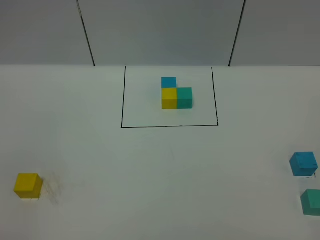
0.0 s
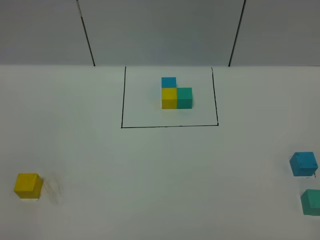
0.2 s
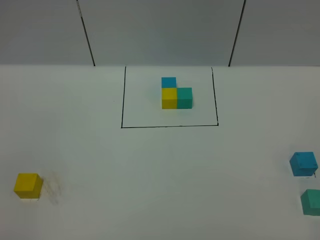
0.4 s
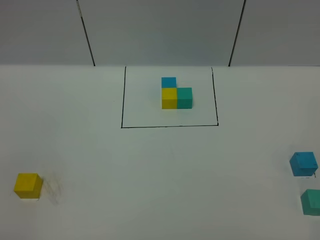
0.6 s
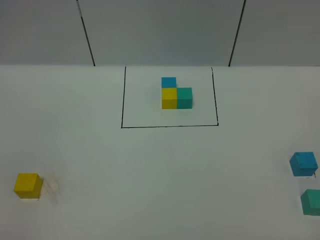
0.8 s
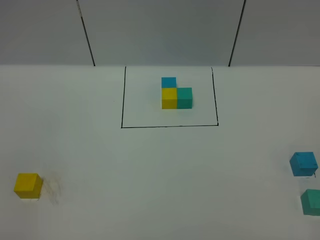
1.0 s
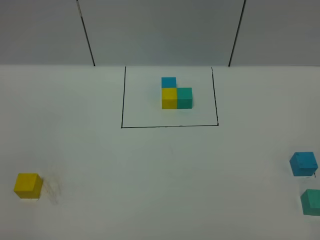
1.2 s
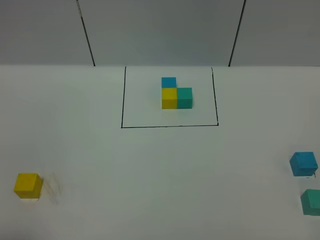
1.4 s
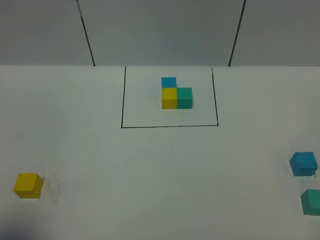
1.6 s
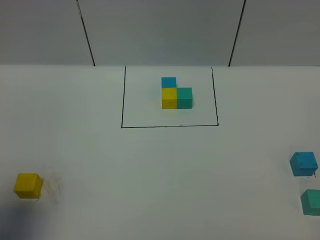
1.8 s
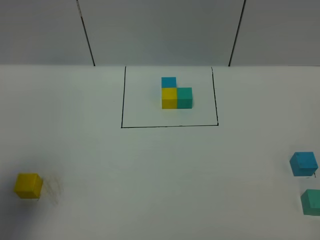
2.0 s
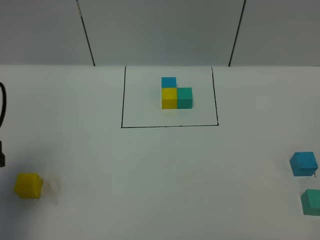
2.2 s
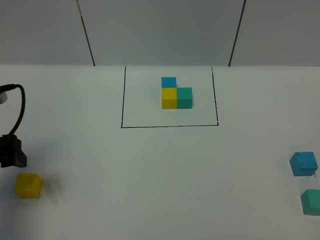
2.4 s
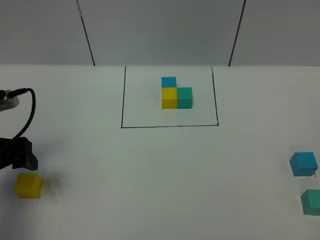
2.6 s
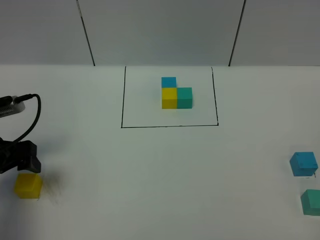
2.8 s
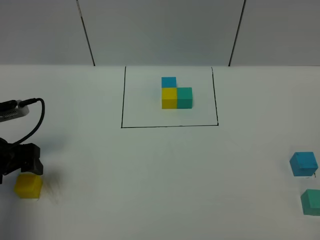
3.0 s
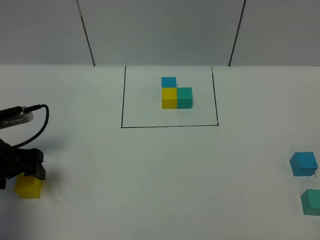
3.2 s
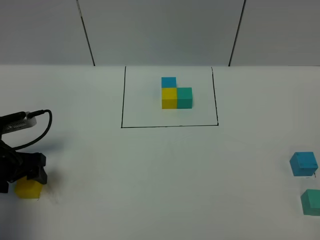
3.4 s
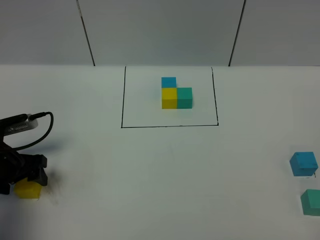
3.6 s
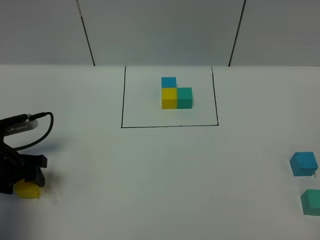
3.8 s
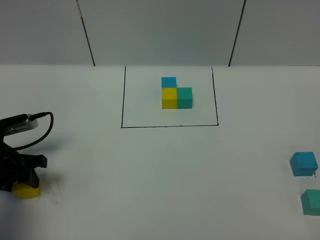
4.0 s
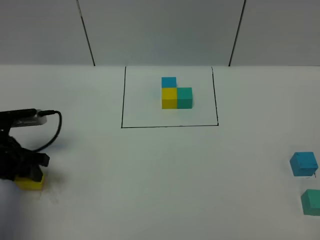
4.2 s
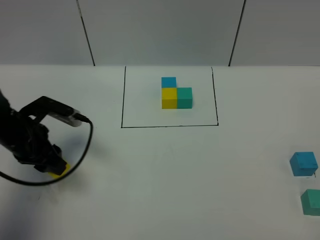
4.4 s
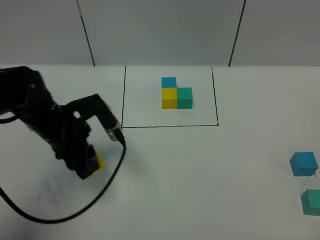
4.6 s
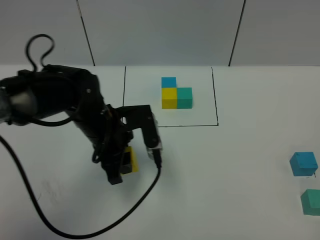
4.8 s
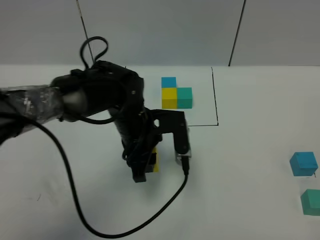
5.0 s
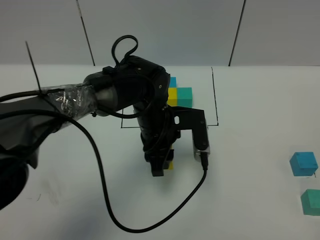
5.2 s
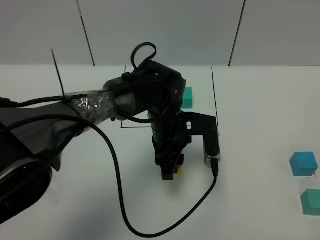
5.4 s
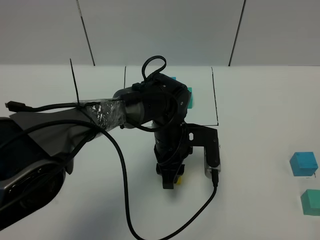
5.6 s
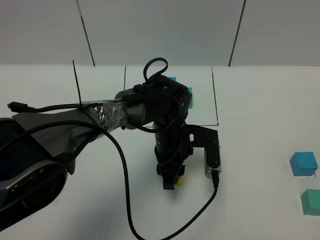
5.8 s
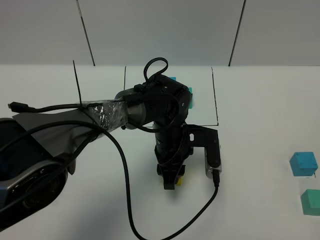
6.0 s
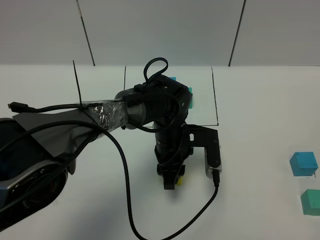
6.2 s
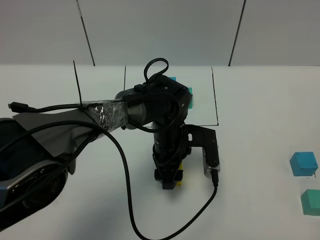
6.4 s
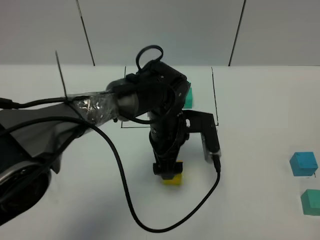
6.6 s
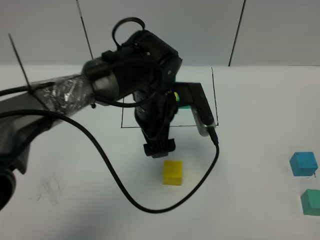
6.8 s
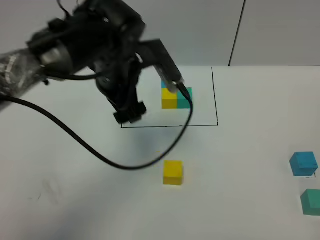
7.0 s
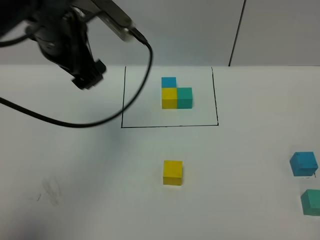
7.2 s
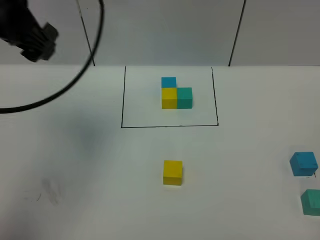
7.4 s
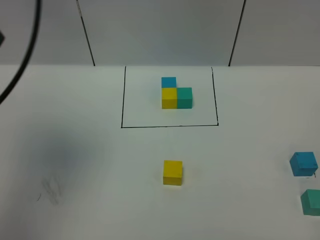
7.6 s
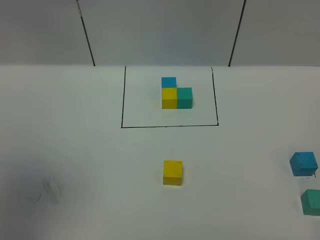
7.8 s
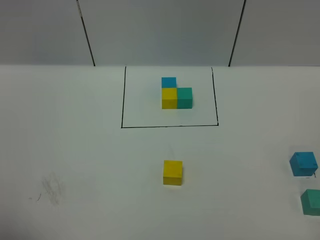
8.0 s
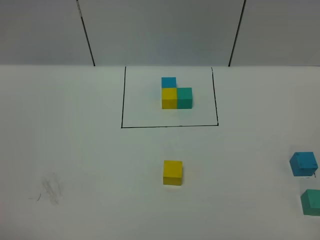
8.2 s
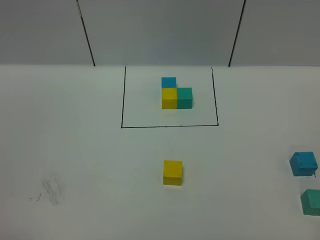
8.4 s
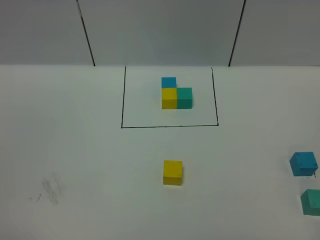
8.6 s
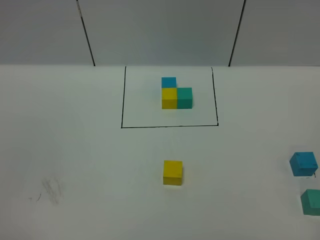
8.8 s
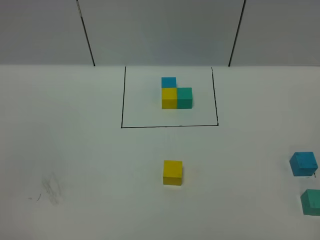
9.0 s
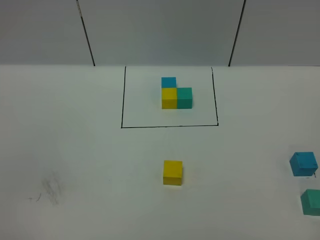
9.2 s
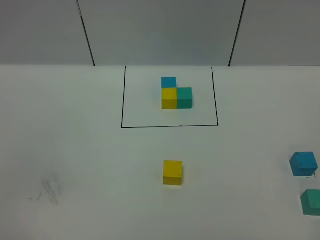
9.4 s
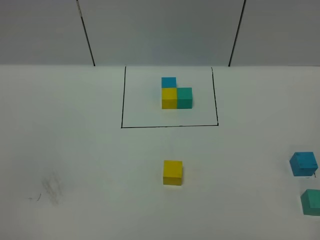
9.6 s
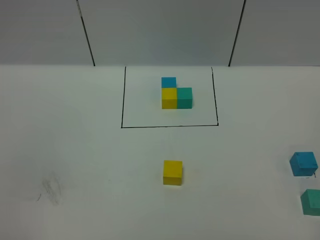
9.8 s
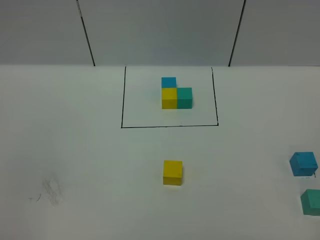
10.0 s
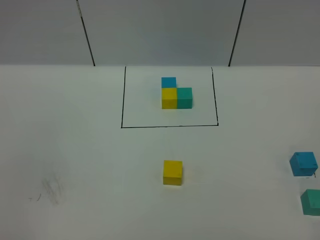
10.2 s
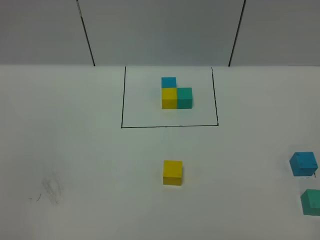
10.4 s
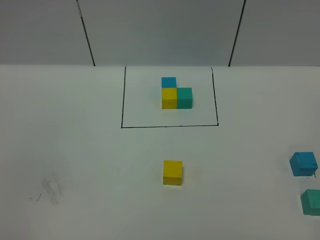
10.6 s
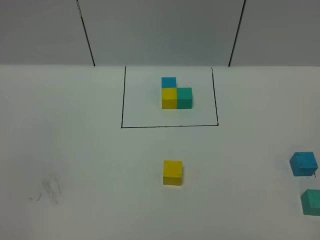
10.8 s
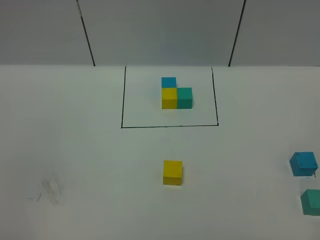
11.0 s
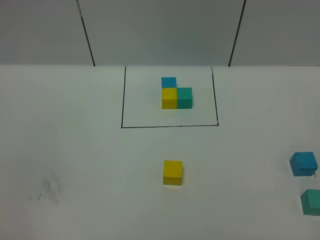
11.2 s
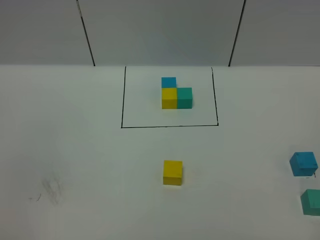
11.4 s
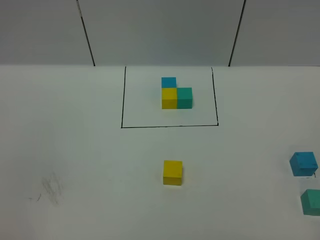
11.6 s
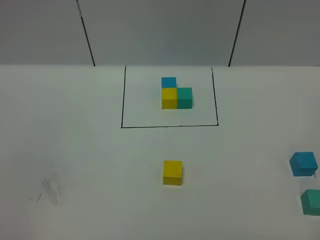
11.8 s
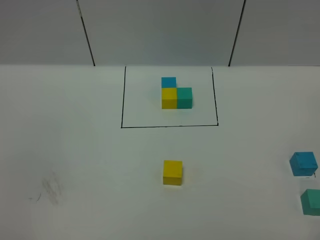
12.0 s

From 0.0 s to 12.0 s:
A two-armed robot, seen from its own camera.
Task of the whole recording: According to the building block template in front, assemble the scattered blocks together.
Step, from 2.2 s to 6.4 s: Put the yellow cube in the center of the table.
From 0.0 s to 1.6 s: The left gripper moves forward, some 10 cm, and opens up.
From 1.6 s to 3.0 s: The left gripper travels forward and downward by roughly 25 cm.
From 3.0 s to 4.4 s: The left gripper shifts some 5 cm to the right, and closes up.
From 4.4 s to 6.0 s: The left gripper goes about 25 cm to the right.
From 6.0 s to 7.6 s: The left gripper travels upward and to the left by about 40 cm, and opens its fingers.
From 7.6 s to 9.0 s: The left gripper is displaced backward and downward by some 30 cm.

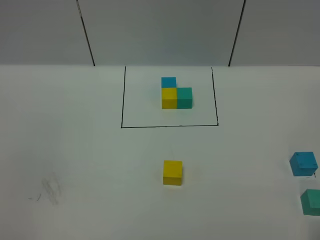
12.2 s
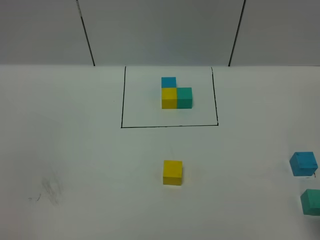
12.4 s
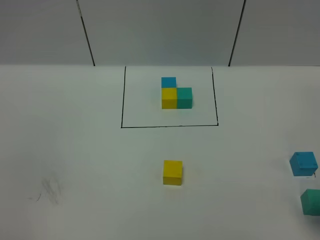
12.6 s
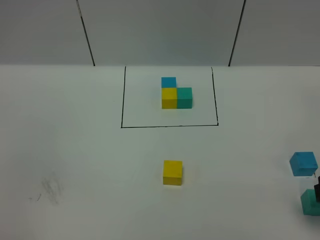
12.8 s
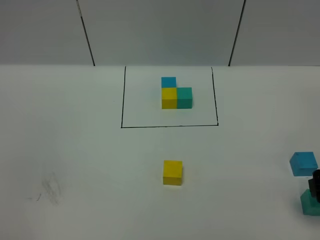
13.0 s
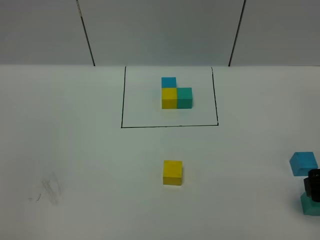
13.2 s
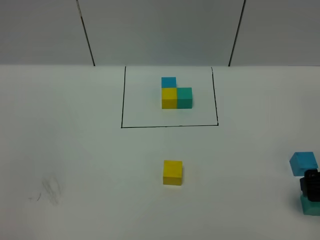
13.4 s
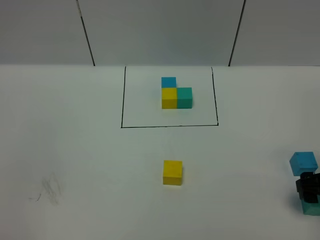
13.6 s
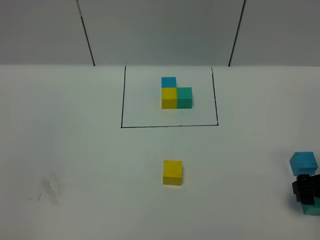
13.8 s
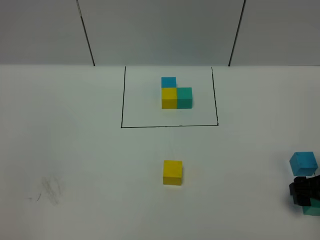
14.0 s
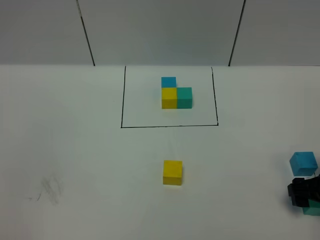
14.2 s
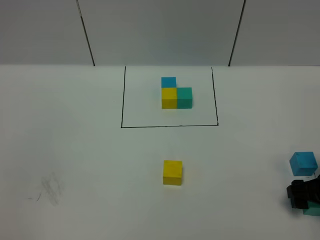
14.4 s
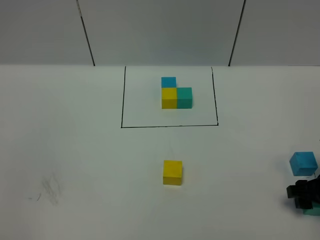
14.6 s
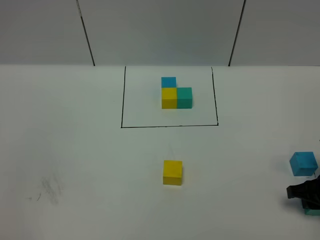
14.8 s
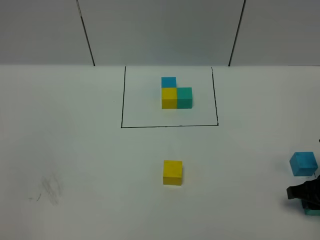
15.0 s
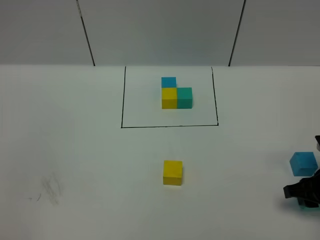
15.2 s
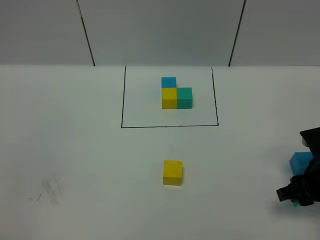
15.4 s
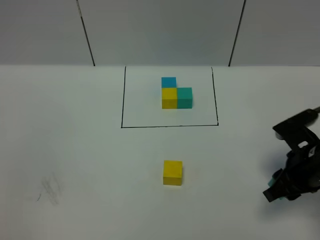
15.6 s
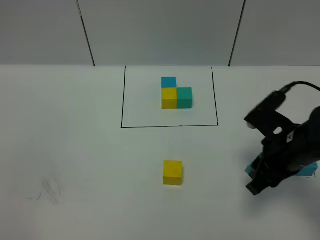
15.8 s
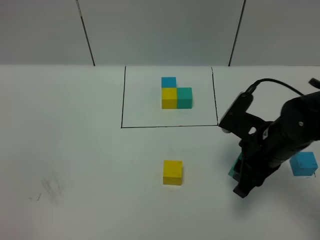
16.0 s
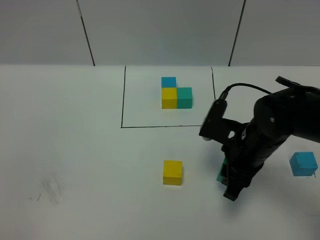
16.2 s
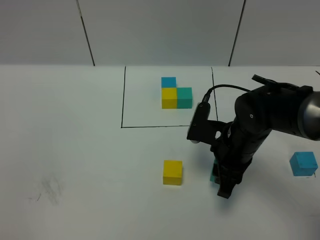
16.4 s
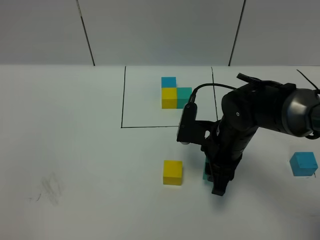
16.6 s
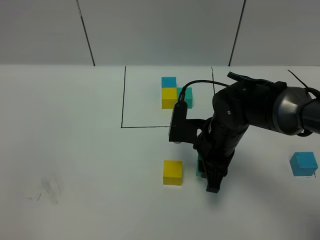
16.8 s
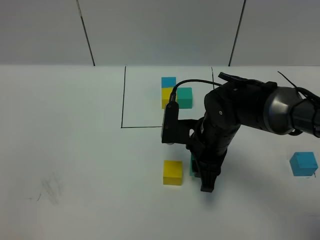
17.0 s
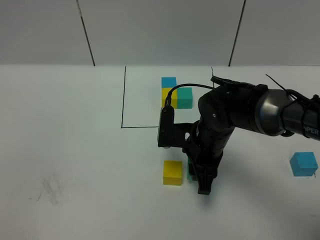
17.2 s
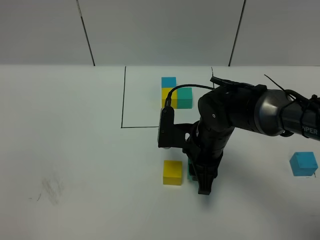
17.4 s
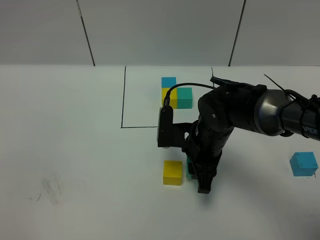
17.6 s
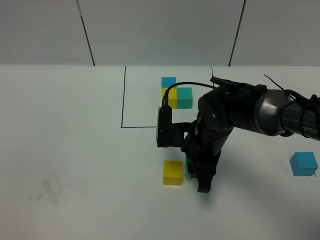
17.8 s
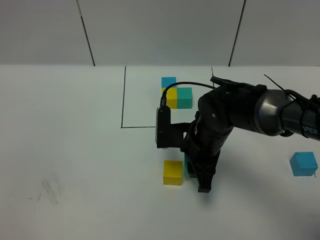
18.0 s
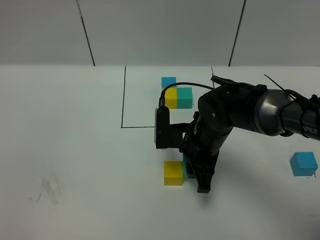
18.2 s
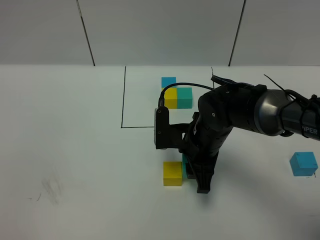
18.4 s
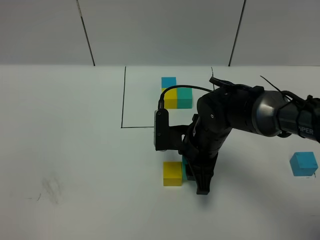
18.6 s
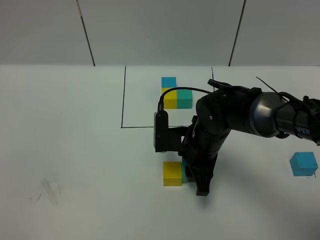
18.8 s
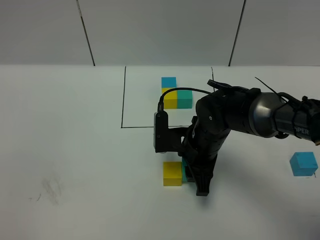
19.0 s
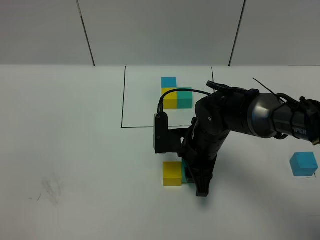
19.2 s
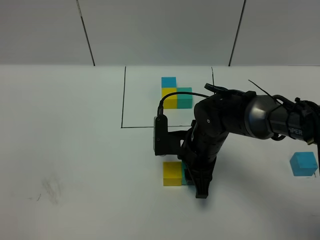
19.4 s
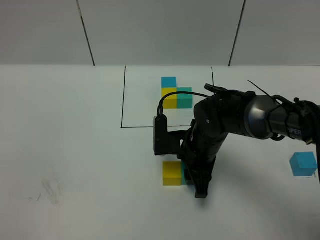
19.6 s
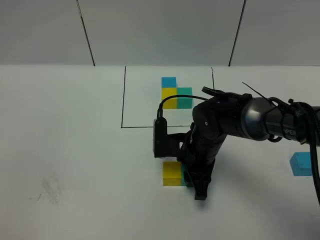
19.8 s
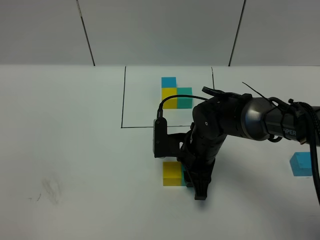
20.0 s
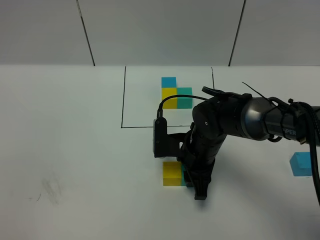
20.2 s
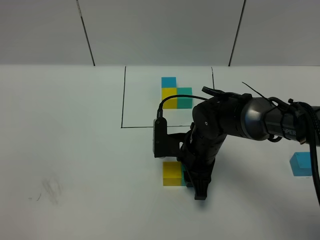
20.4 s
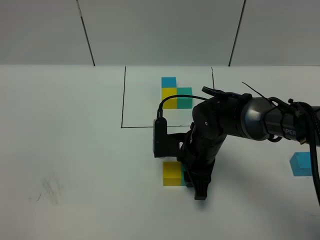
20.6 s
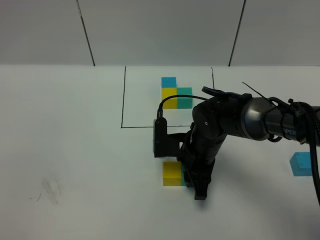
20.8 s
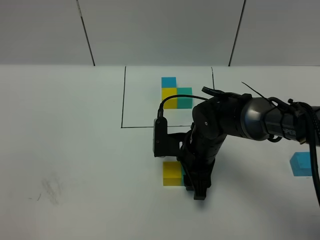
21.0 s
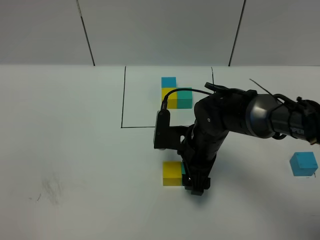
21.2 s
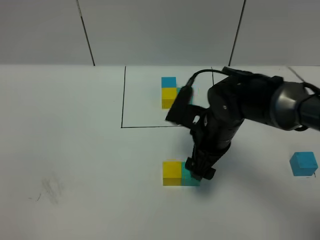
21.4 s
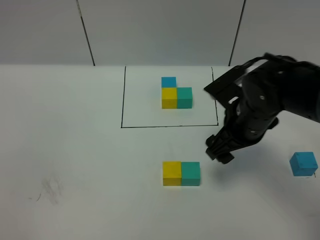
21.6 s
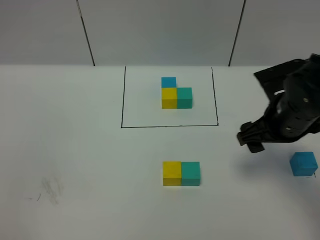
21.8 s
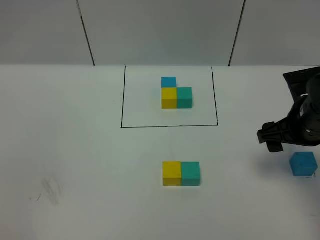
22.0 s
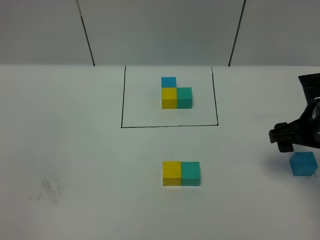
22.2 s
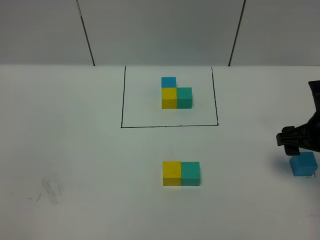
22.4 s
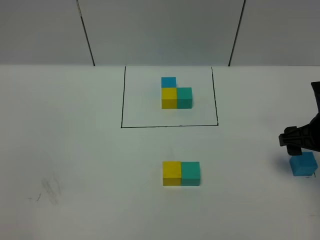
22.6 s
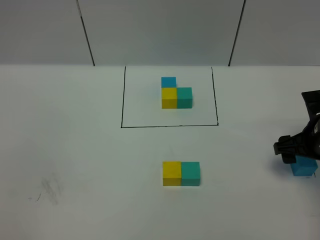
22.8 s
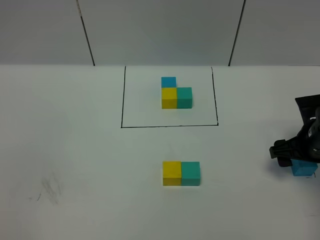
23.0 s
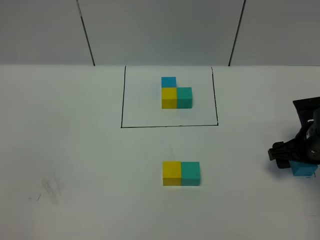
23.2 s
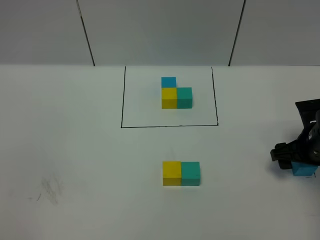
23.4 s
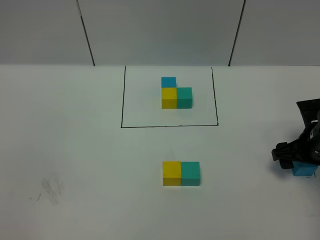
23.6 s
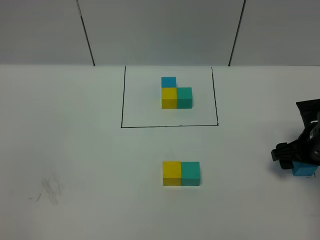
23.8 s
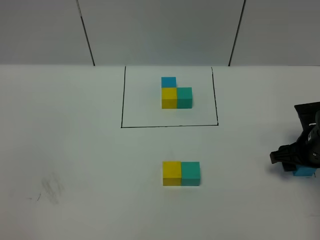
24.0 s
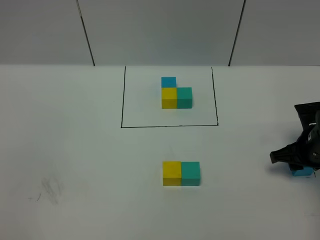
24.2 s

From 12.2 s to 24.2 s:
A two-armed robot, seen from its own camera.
Task of the whole recording: According to the building block template in front, assemble the scattered blocks together.
Step, from 12.2 s to 21.2 s: Put the green cube on the right of the yellow cube.
From 12.2 s to 13.8 s: The right gripper moves forward and downward, approximately 20 cm.
From 15.2 s to 16.6 s: The right gripper is displaced to the left by some 20 cm.
From 16.6 s to 19.8 s: The grippers make only small movements.
From 19.8 s to 21.2 s: The right gripper opens its fingers.
From 21.2 s to 22.6 s: The right gripper travels to the right by approximately 20 cm.
From 22.6 s to 24.2 s: The right gripper goes some 5 cm downward, and closes its fingers.
